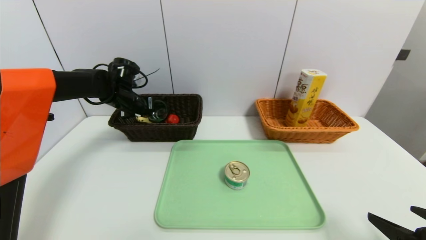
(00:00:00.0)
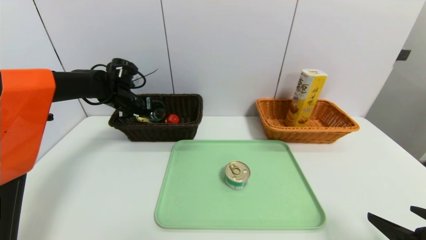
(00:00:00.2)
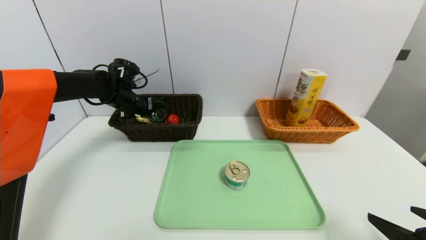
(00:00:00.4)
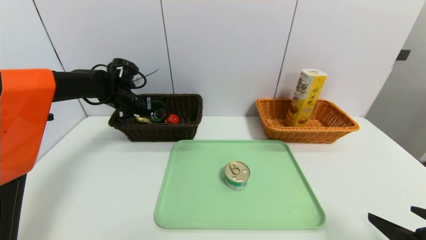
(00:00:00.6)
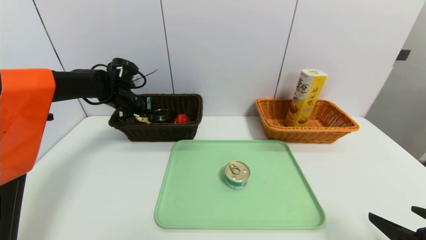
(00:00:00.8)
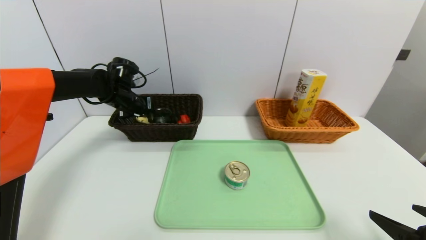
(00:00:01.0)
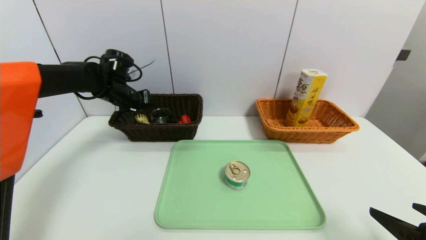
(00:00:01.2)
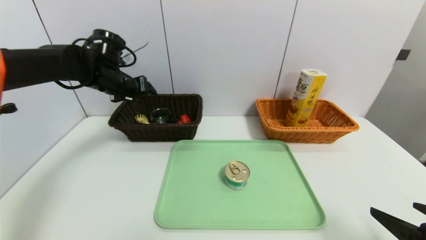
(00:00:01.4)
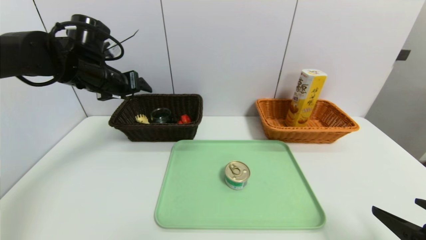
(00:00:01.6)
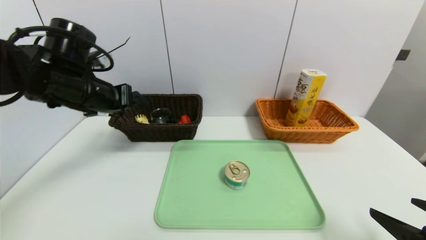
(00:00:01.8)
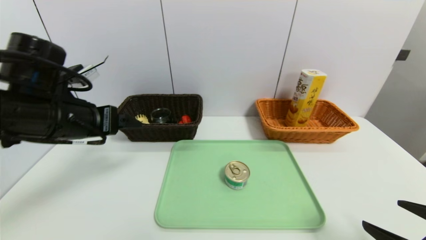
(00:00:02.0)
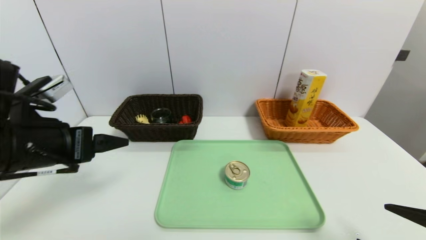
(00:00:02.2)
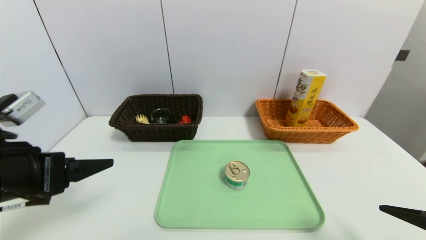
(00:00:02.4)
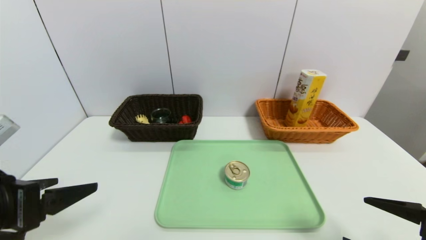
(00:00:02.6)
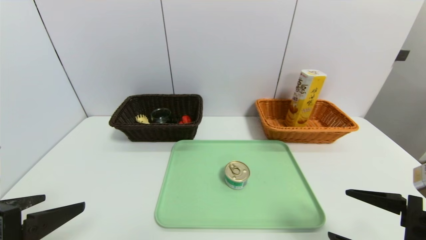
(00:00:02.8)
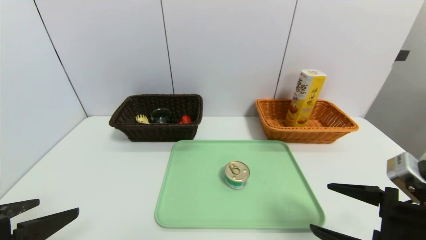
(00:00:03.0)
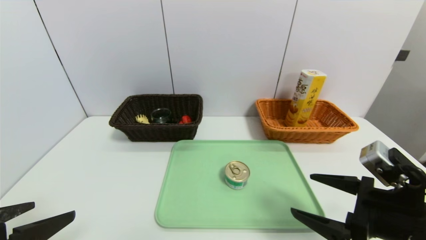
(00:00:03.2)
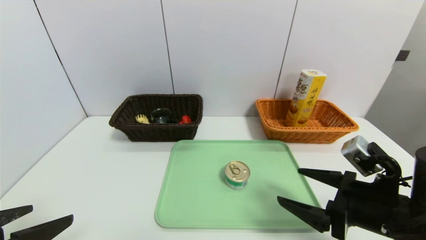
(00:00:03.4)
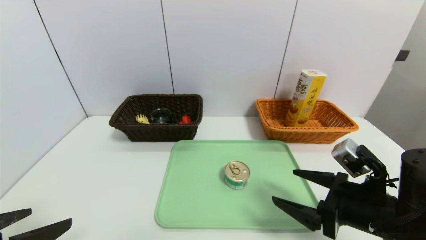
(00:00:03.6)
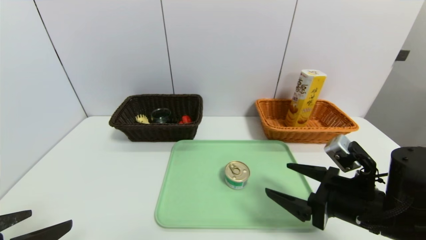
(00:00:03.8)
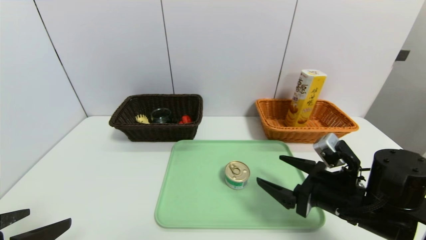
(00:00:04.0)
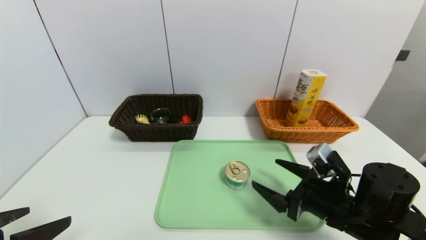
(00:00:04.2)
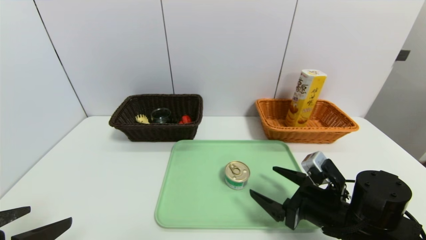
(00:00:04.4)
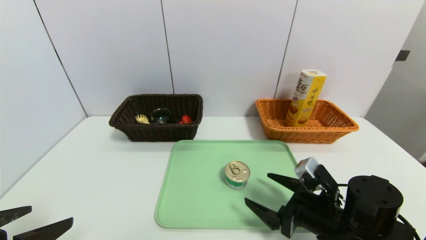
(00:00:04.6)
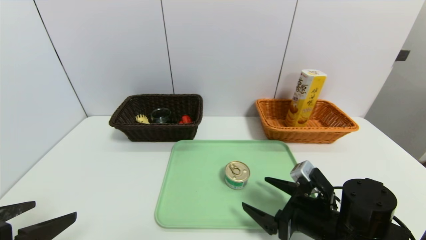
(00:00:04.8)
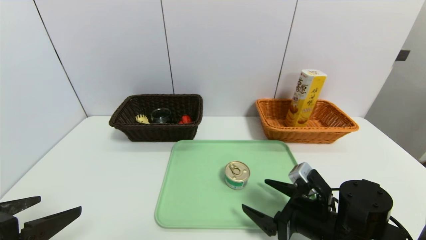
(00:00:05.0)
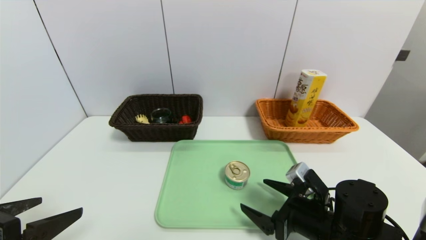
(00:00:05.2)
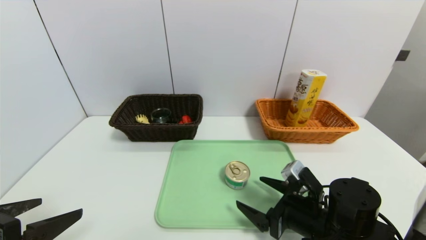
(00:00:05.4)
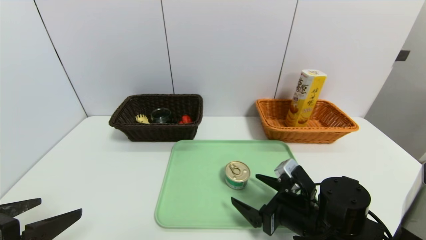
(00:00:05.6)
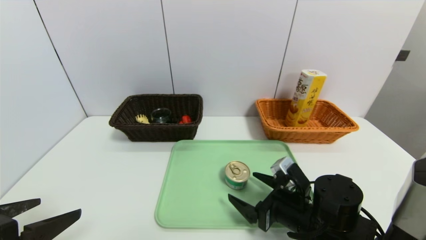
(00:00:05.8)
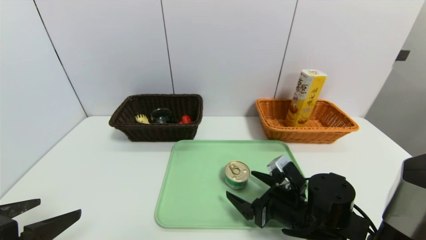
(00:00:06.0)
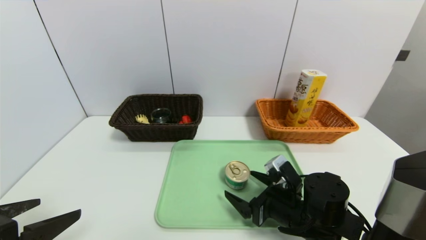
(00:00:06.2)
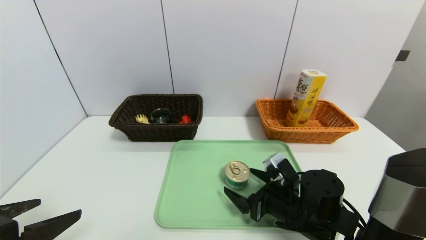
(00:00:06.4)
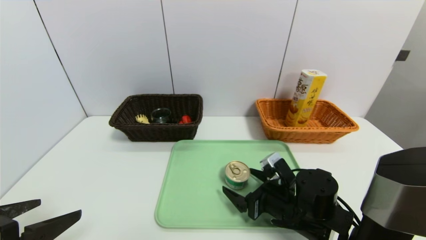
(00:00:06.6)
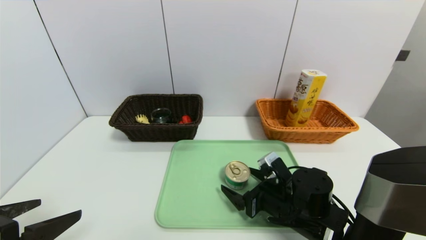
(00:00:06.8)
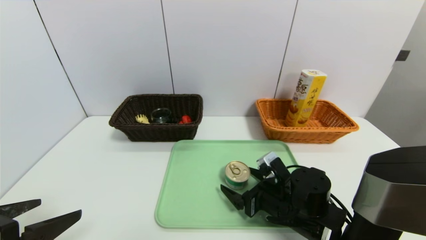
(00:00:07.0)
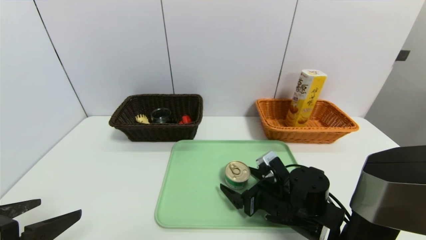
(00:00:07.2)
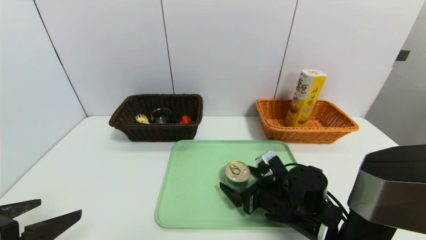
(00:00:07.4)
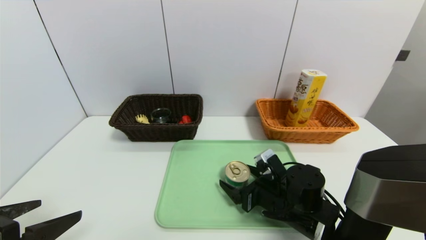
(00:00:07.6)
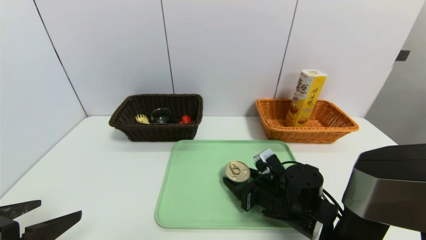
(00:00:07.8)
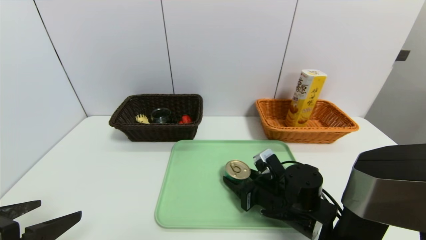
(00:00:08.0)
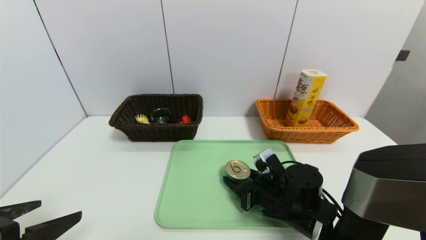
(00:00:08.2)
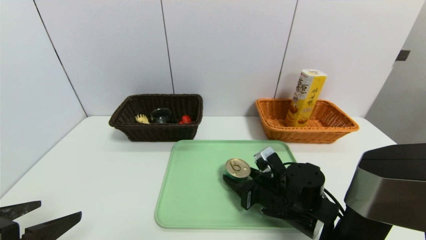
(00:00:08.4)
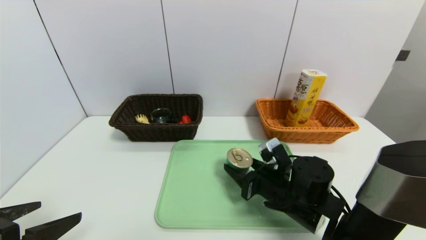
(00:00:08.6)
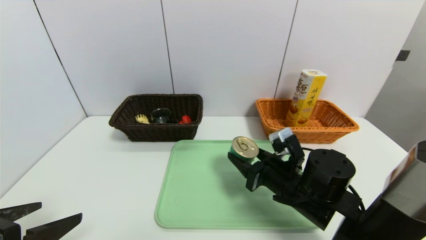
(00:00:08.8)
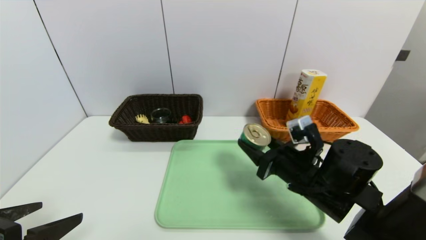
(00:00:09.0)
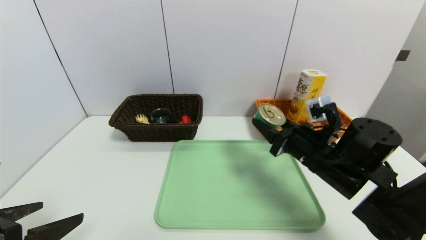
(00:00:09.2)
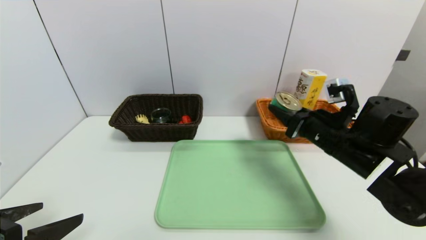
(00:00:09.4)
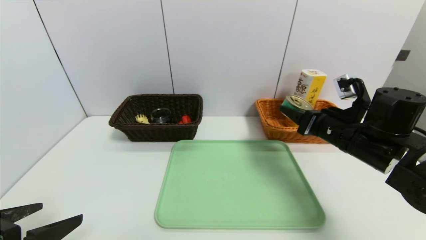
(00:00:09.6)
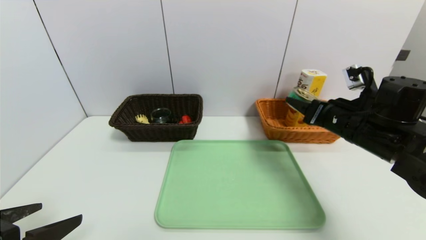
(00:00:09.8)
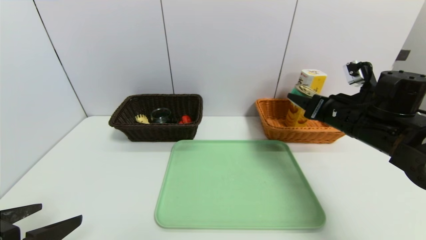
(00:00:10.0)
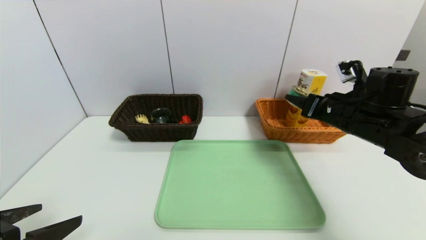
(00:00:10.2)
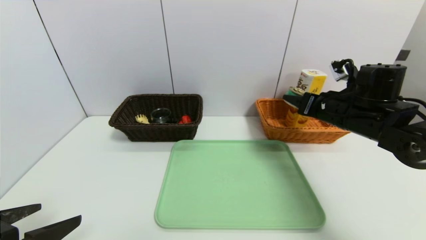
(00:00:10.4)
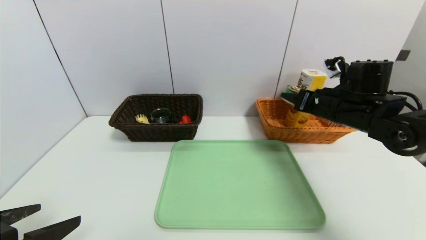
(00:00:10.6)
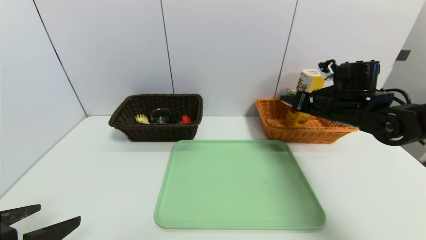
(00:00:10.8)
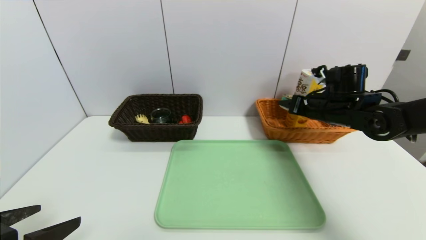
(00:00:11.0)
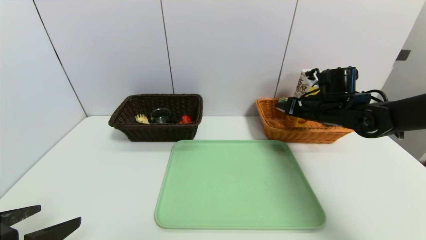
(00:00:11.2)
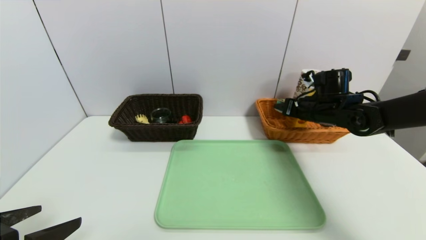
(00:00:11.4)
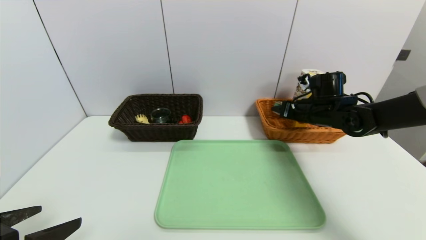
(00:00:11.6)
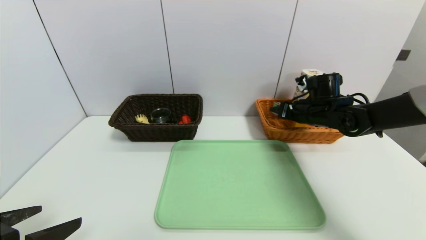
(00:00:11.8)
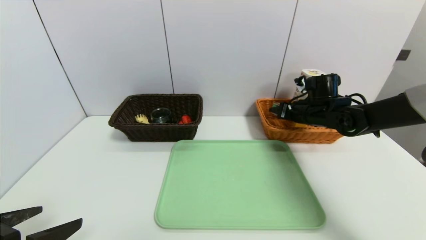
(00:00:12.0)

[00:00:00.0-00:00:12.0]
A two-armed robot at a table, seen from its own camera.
Task of the whole recording: place the food in the right basket with the right gripper, and place the non food items in the left basket with the left gripper.
00:00:00.0 to 00:00:01.6: The left gripper heads upward and backward, covering approximately 10 cm, and opens its fingers.
00:00:01.6 to 00:00:03.0: The left gripper goes some 30 cm backward; the right gripper moves about 5 cm.
00:00:03.0 to 00:00:04.4: The right gripper shifts some 15 cm downward, forward and to the left.
00:00:04.4 to 00:00:06.0: The right gripper ends up some 5 cm from where it was.
00:00:06.0 to 00:00:07.6: The grippers make only small movements.
00:00:07.6 to 00:00:09.0: The right gripper goes about 10 cm upward, and closes.
00:00:09.0 to 00:00:10.4: The right gripper travels to the right, upward and forward by roughly 15 cm.
00:00:10.4 to 00:00:12.0: The right gripper shifts some 10 cm forward and downward.

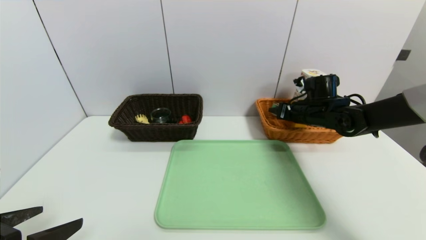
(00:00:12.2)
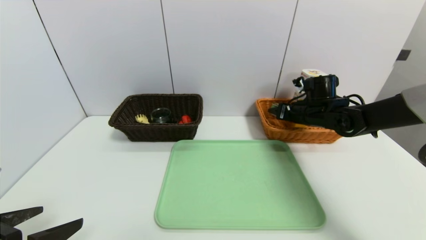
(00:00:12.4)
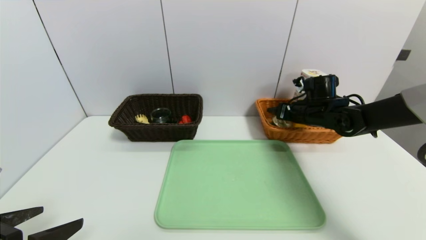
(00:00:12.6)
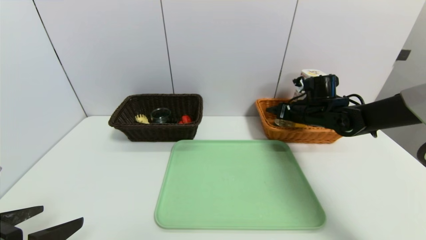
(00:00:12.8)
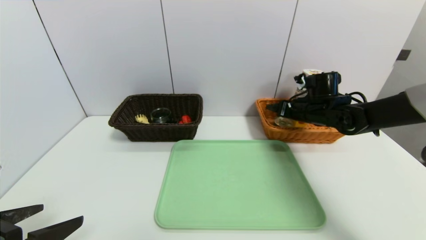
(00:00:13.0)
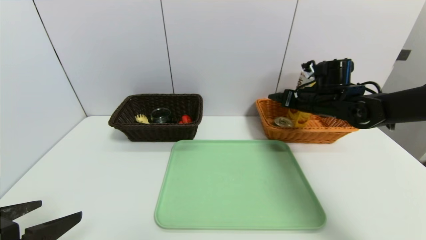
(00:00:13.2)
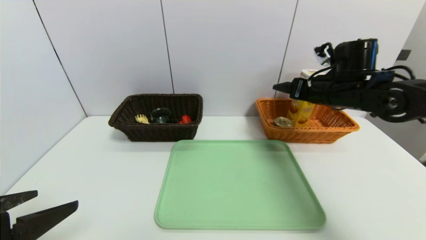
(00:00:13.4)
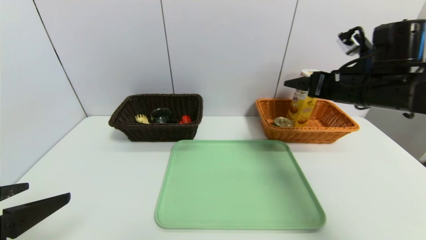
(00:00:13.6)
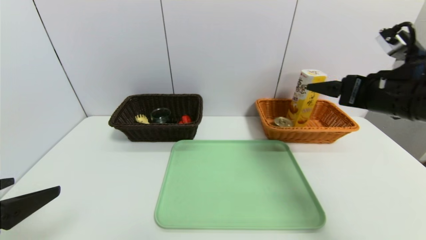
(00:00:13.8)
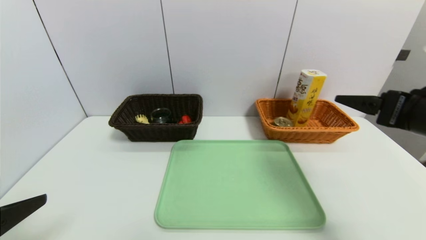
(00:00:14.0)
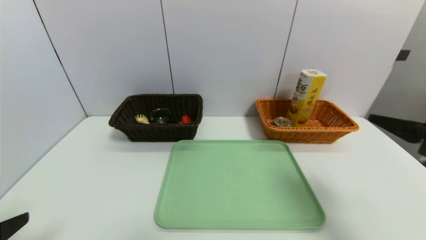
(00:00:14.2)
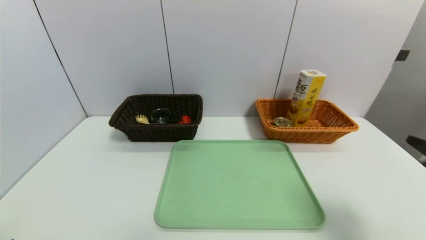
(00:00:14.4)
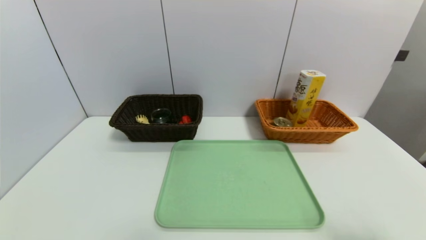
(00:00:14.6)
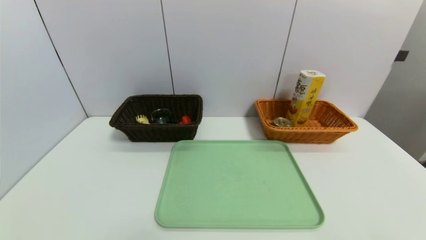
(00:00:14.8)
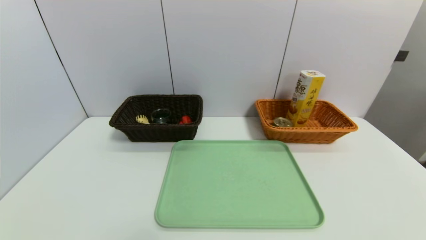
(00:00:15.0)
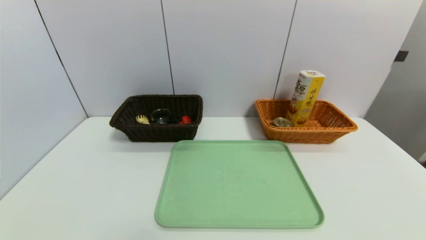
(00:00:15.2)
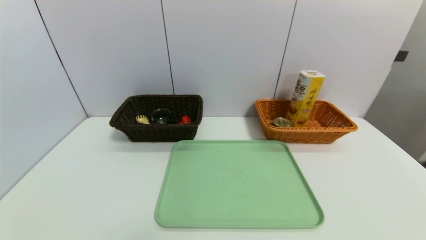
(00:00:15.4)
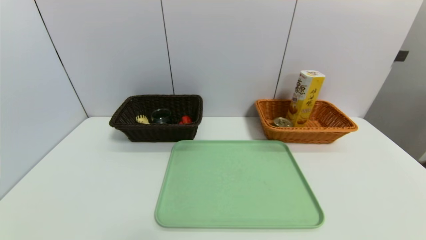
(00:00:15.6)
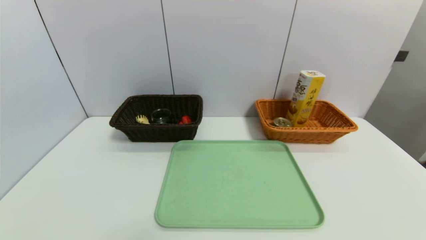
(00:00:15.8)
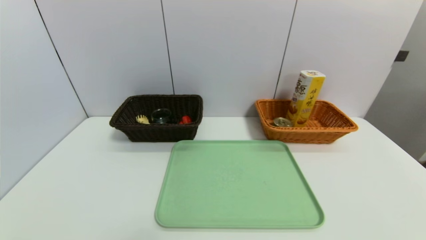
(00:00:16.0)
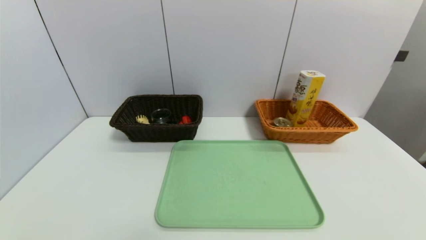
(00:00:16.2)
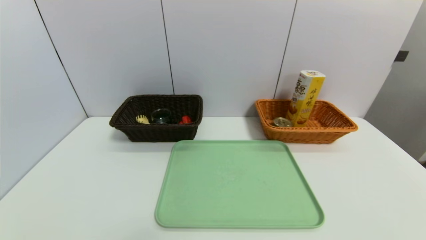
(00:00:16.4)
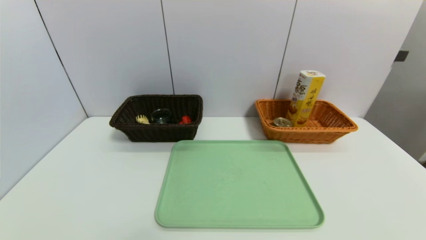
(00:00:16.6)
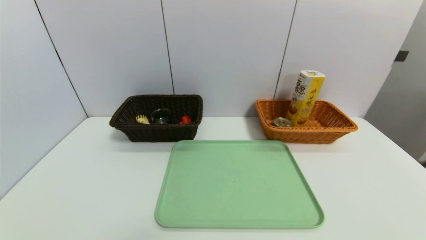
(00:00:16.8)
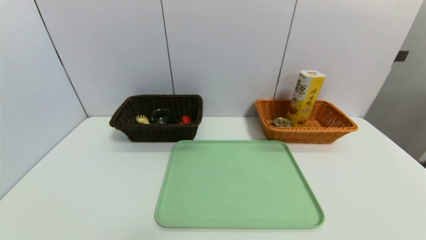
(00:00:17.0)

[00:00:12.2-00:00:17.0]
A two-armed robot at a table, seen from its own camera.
Task of the whole recording: place the food in the right basket with the right gripper, and place the non food items in the left basket with the left gripper.
00:00:12.2 to 00:00:13.8: The right gripper goes roughly 20 cm backward and upward, and opens its fingers.
00:00:13.8 to 00:00:15.4: The right gripper moves backward and downward, roughly 30 cm. The left gripper travels backward and downward by approximately 15 cm.
